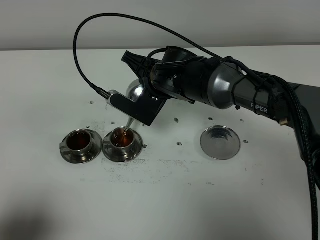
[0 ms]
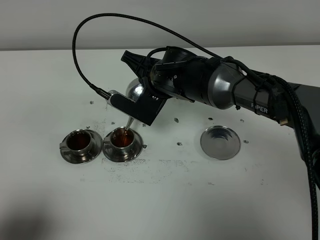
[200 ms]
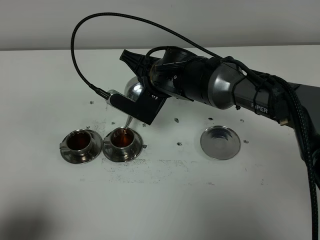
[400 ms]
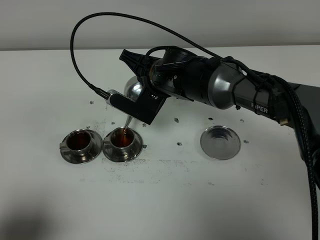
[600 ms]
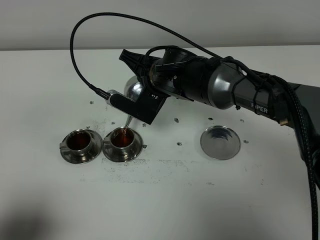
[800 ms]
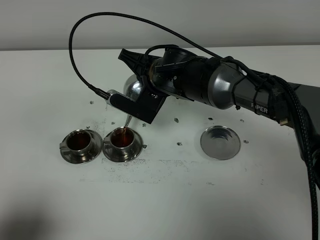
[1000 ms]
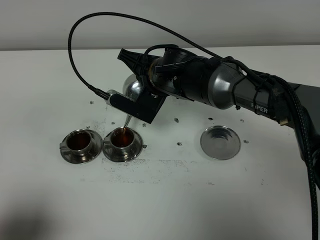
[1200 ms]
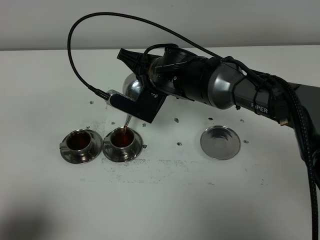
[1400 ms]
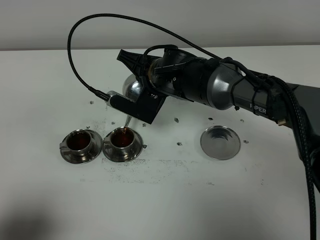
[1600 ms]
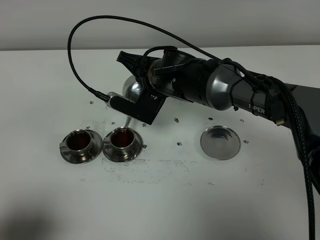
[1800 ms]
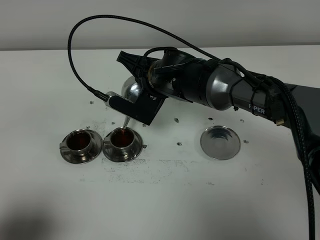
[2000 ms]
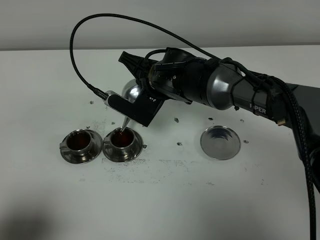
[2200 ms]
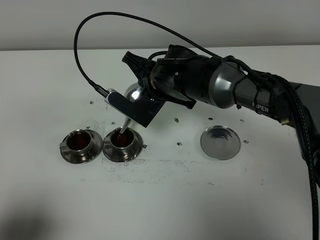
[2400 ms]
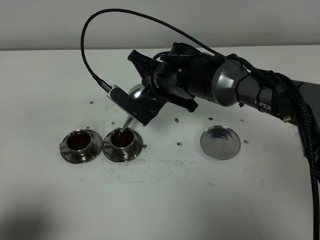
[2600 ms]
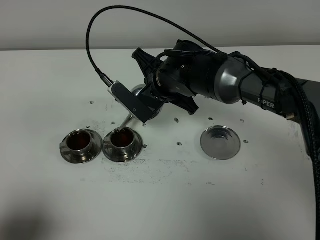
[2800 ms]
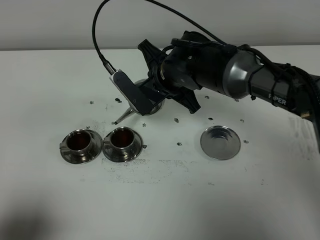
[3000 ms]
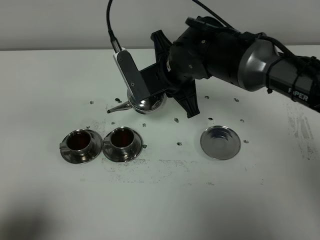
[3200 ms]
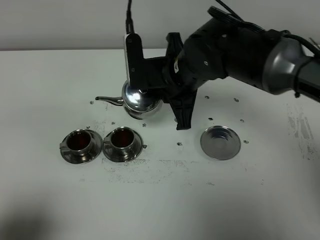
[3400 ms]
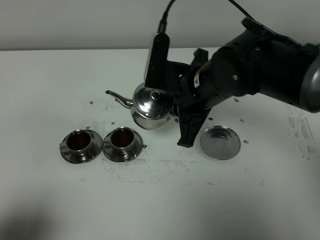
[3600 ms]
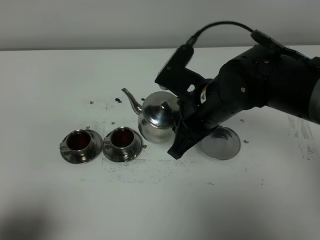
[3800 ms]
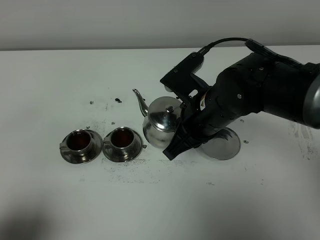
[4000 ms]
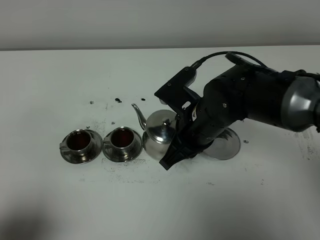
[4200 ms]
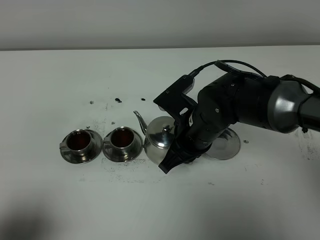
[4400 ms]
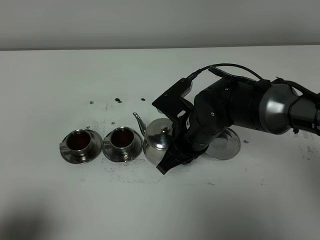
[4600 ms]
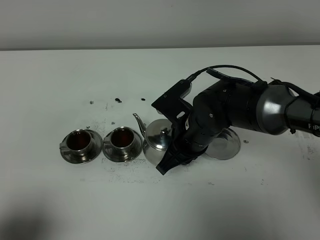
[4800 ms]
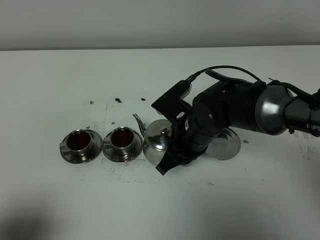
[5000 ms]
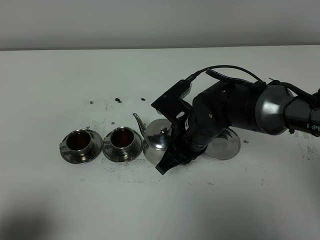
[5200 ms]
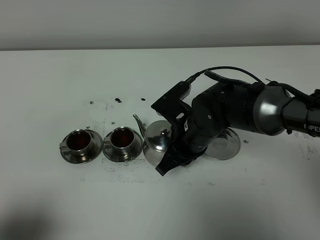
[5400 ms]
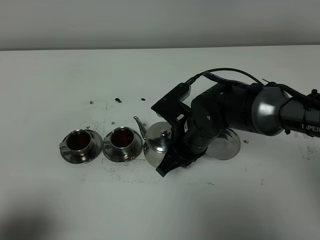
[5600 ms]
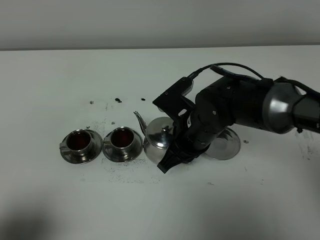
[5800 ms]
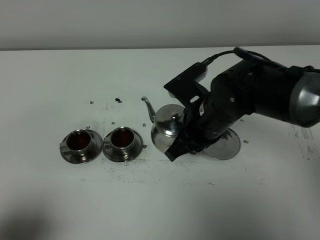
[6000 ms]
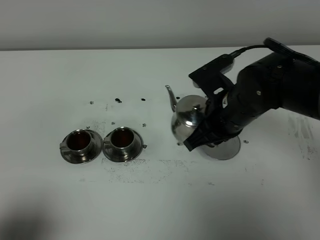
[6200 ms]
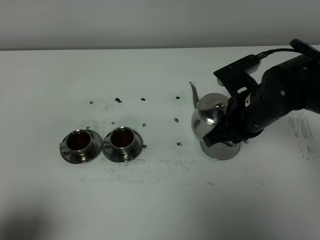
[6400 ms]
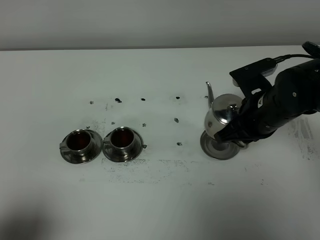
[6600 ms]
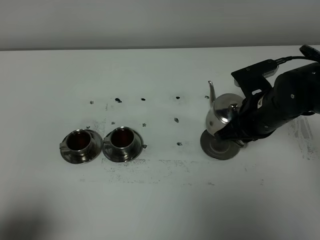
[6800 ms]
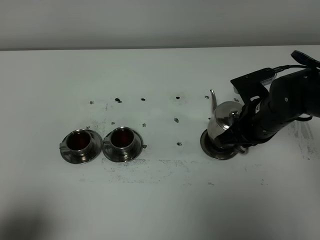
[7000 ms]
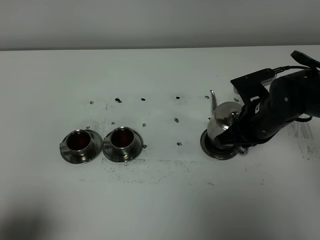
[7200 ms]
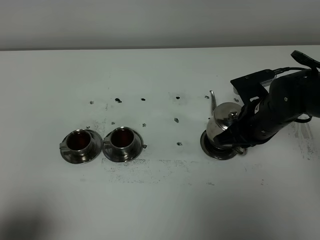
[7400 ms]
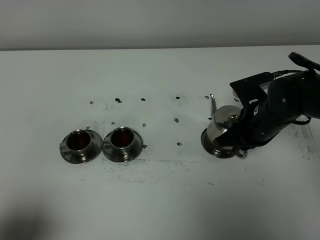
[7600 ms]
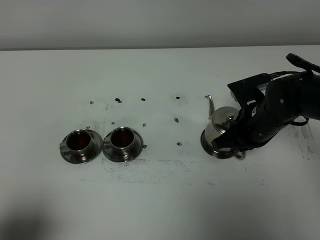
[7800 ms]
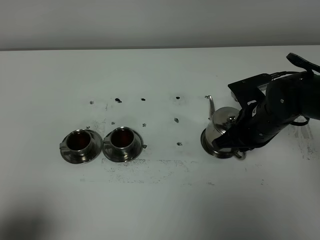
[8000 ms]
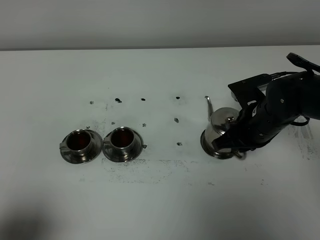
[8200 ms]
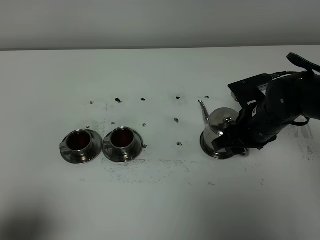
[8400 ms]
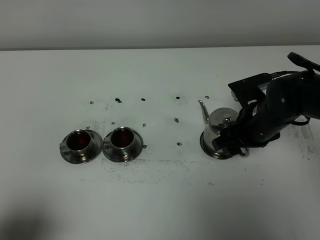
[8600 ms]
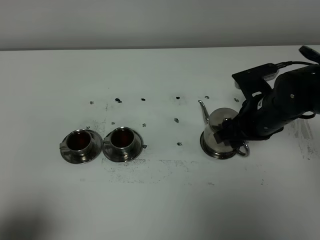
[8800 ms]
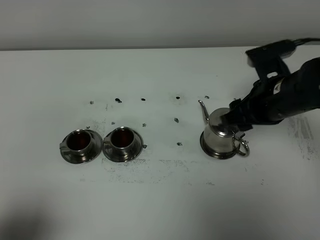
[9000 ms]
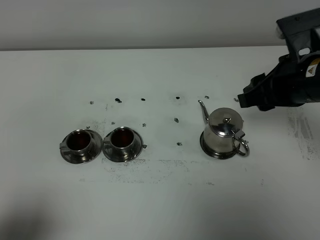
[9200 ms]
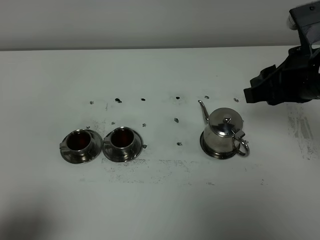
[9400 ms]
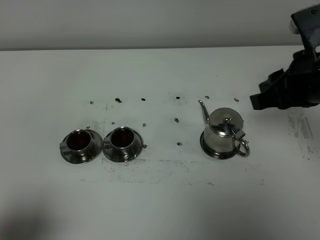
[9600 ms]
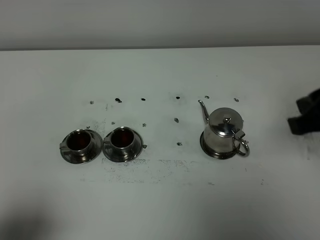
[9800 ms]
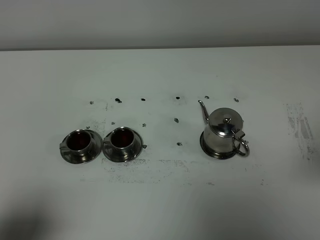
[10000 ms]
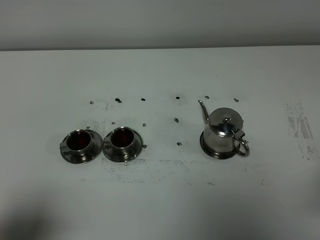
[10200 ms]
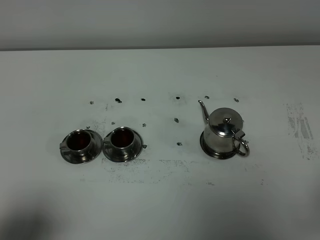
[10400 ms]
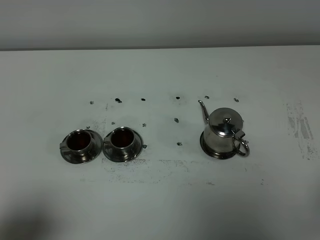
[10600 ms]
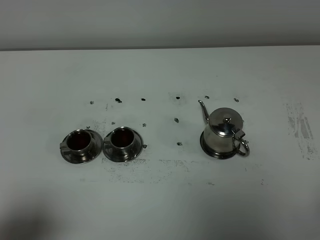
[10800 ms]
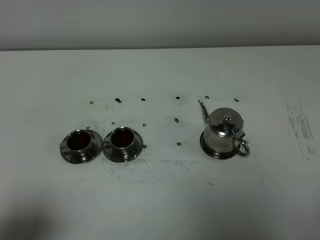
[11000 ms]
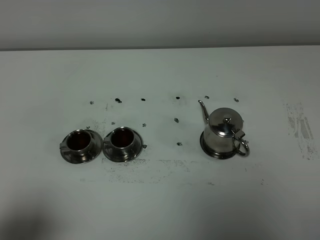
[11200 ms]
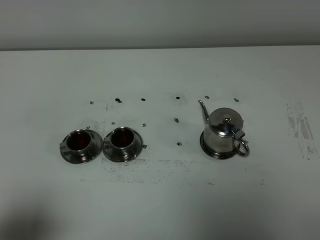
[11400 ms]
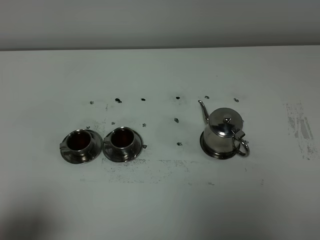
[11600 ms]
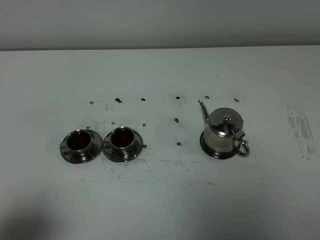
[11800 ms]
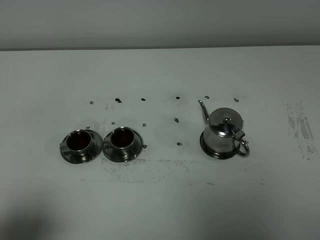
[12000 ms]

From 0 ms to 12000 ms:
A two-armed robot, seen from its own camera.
Task of the whole recording: grasp the stainless steel teapot and pour the tea into the two stainless steel teacups one by one, put the stainless steel teapot back in its original place.
Step, from 0 ms to 2800 ms: Pour tea into the teacup with the right gripper.
From 0 ms to 1600 ms: The grippers stay close to where they were, moving slightly.
From 3000 ms to 4400 ms: The right gripper moves backward, approximately 10 cm.
From 4400 ms to 6000 ms: The grippers move only a little.
From 6000 ms to 7600 ms: The right gripper goes some 10 cm to the right and downward.
From 7600 ms to 9000 ms: The right gripper moves upward, roughly 10 cm, and opens up.
From 9000 ms to 10400 ms: The right gripper is displaced backward and to the right by some 25 cm, and closes.

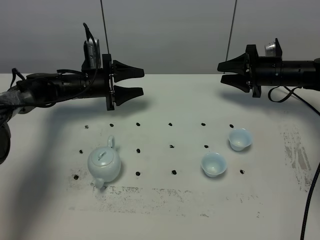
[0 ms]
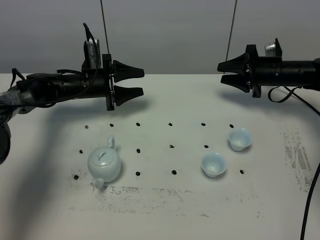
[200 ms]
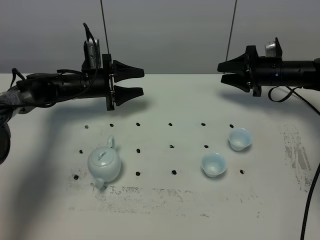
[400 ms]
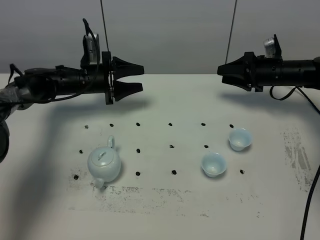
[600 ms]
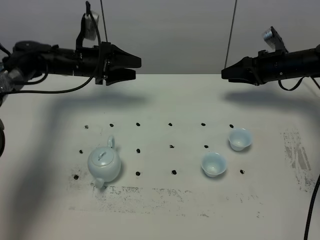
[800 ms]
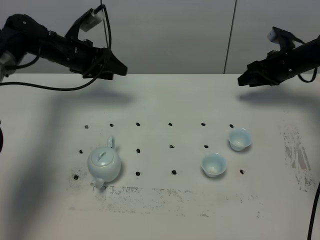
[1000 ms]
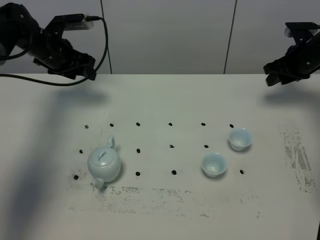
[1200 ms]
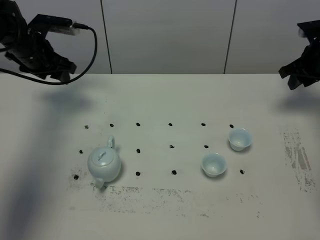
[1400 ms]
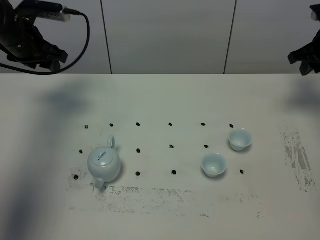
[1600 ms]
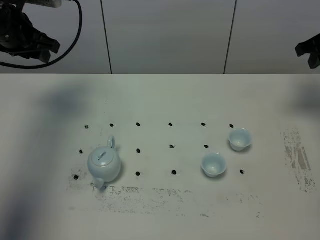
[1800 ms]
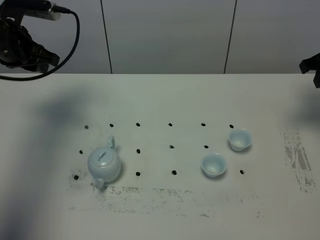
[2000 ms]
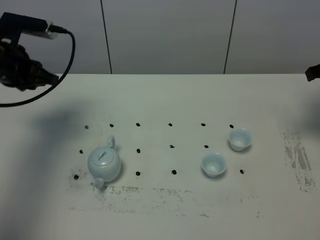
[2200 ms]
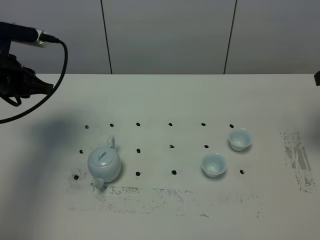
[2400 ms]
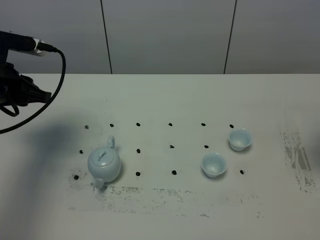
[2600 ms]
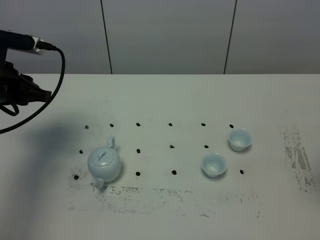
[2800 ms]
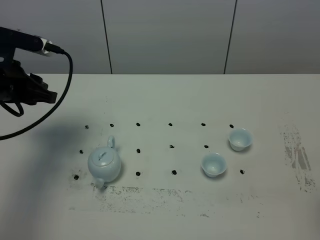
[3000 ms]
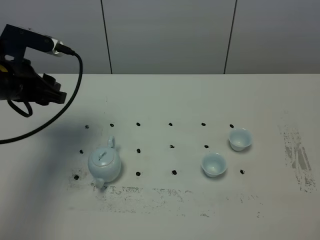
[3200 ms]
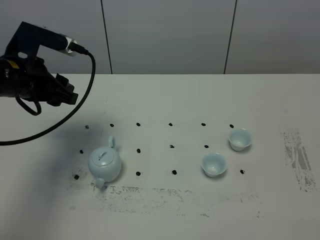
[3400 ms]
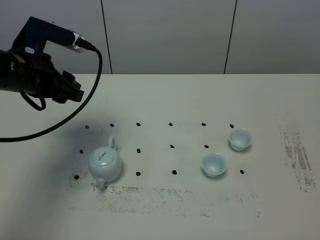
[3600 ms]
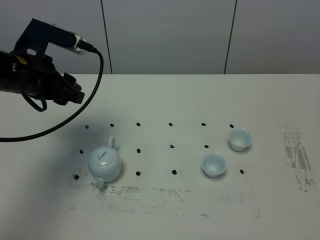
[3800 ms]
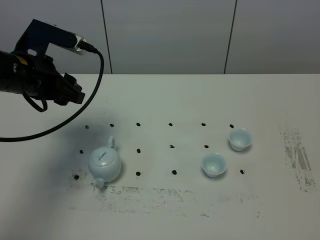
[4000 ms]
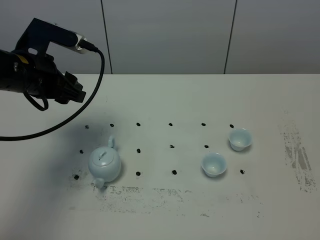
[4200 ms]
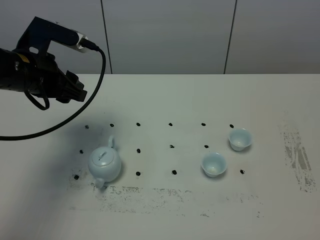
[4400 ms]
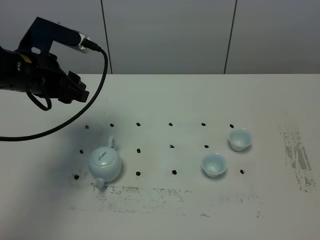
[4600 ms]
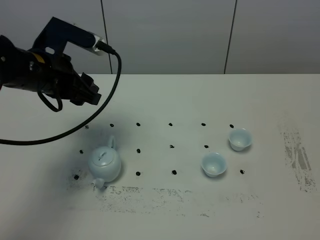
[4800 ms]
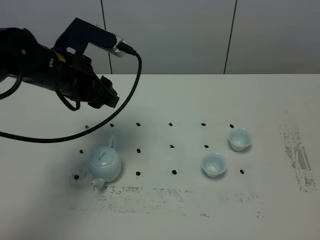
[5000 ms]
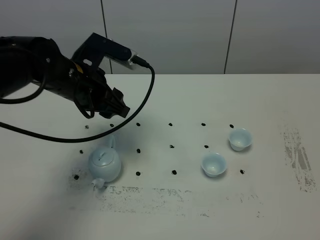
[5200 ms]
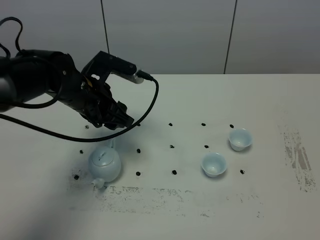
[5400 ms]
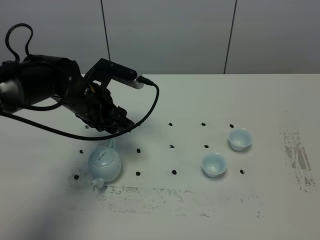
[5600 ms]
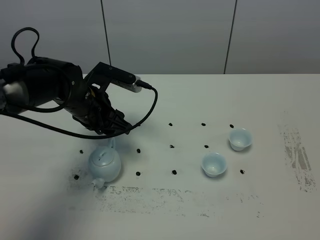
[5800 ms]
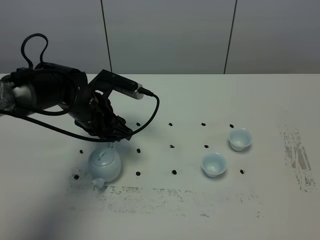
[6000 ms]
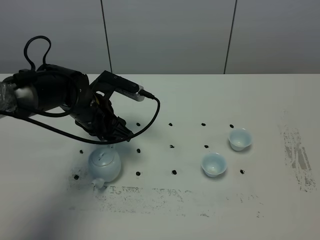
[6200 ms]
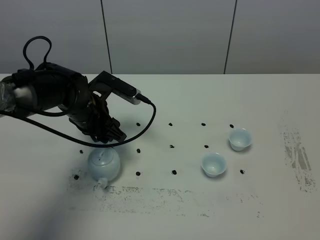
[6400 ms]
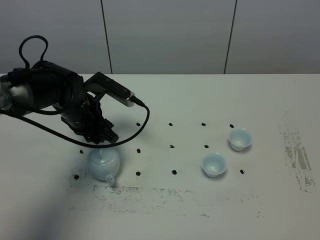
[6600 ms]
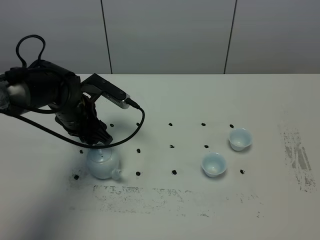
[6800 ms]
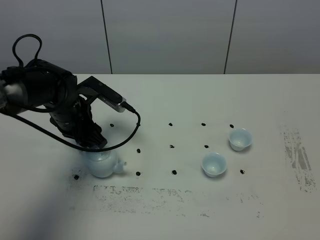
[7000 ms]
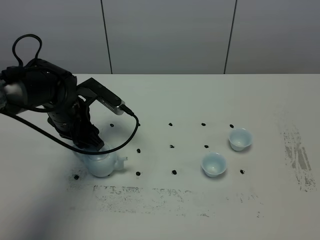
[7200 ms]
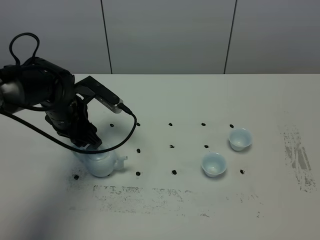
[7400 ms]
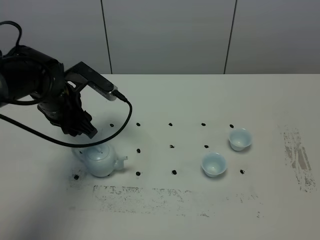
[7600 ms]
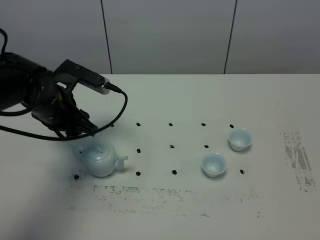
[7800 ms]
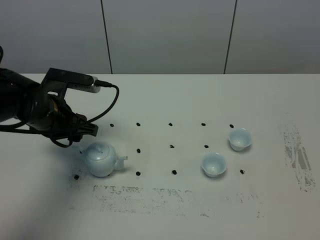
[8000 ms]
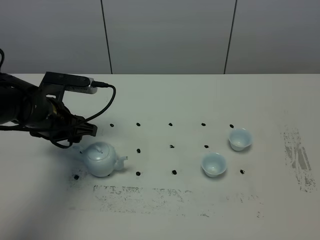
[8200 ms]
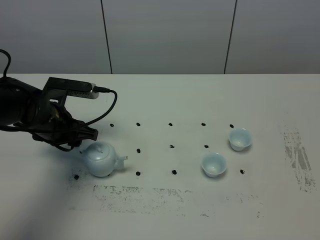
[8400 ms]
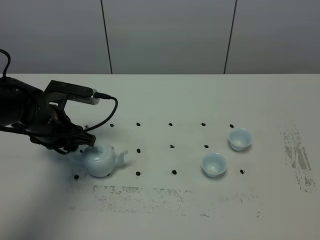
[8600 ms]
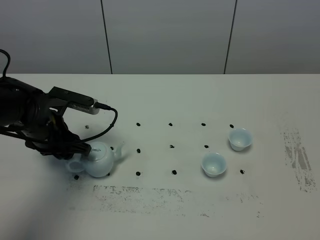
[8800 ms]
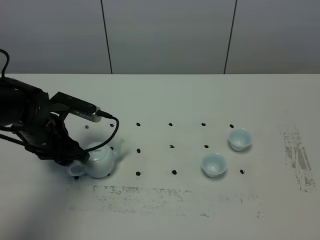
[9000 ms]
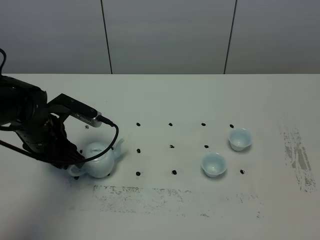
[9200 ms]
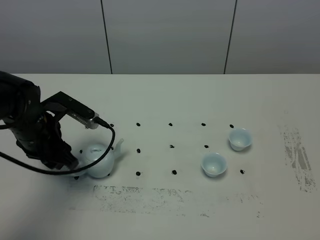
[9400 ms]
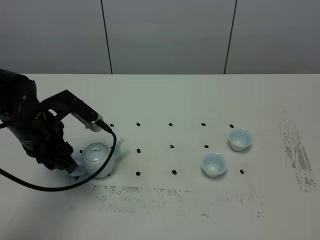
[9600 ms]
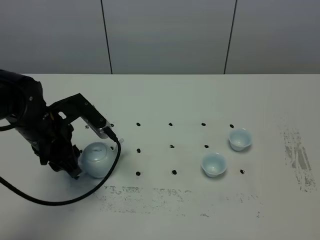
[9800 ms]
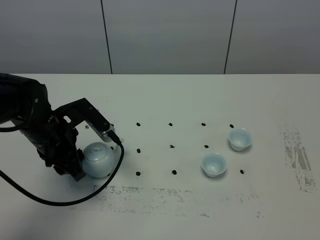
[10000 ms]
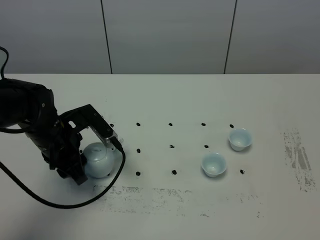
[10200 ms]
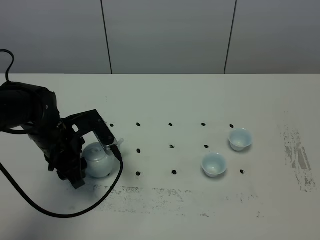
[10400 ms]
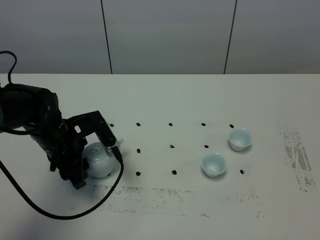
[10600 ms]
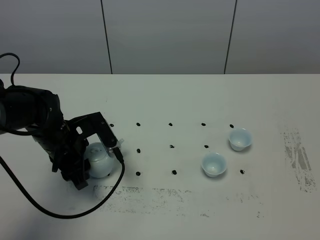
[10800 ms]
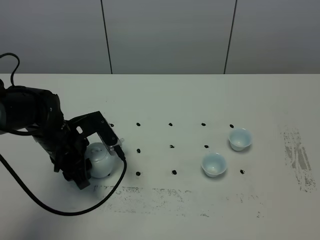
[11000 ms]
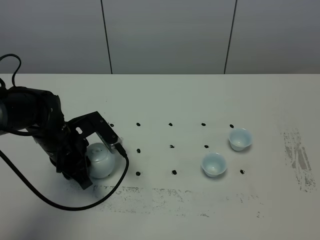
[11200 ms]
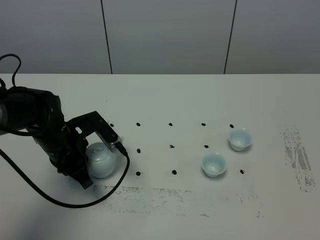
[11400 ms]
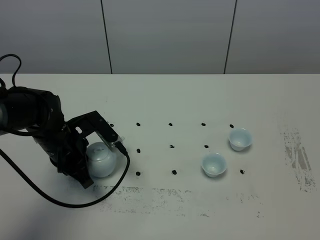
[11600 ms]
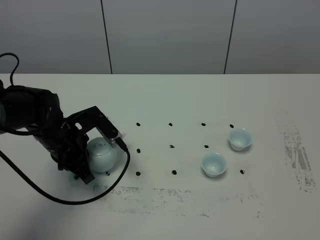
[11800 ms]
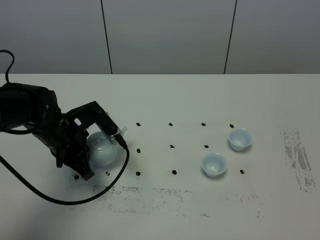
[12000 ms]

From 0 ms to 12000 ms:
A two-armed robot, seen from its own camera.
Task of the whole recording: grasp the blue porcelain teapot and pour the tea into the two blue porcelain teacups one by one, put the blue porcelain teapot back in its original place.
From 0 ms to 1600 ms: The right gripper travels upward and to the right by approximately 15 cm, and closes up; the left gripper moves upward and to the left, approximately 20 cm.
From 1600 ms to 3000 ms: The right gripper goes roughly 35 cm backward. Meanwhile the left gripper travels backward by roughly 15 cm.
From 3000 ms to 4400 ms: The left gripper goes roughly 5 cm to the right.
From 4400 ms to 6000 ms: The left gripper goes roughly 15 cm downward and to the right.
From 6000 ms to 7600 ms: The left gripper ends up roughly 5 cm from where it was.
From 7600 ms to 9000 ms: The left gripper shifts by approximately 5 cm.
From 10400 ms to 12000 ms: The left gripper closes its fingers.
